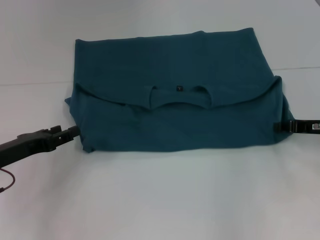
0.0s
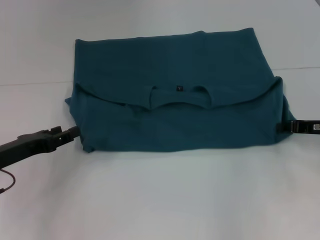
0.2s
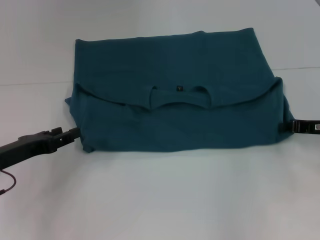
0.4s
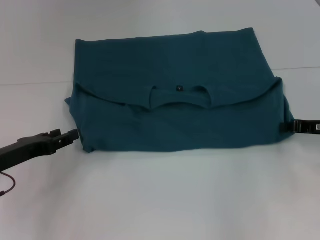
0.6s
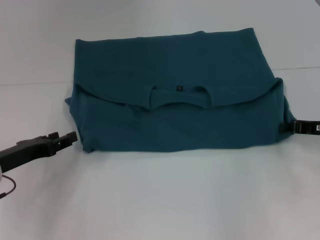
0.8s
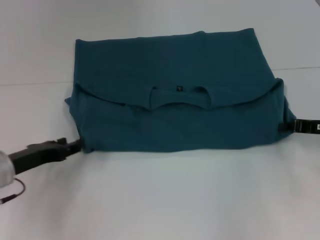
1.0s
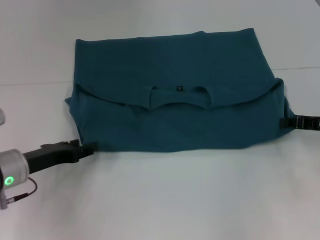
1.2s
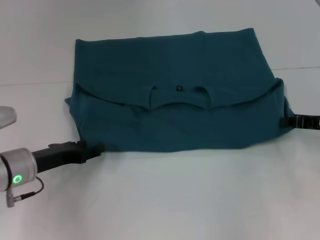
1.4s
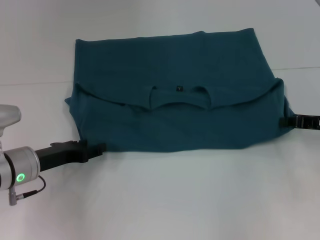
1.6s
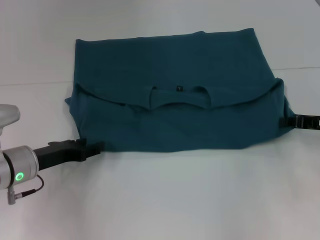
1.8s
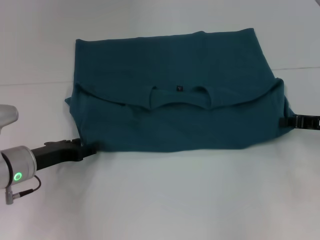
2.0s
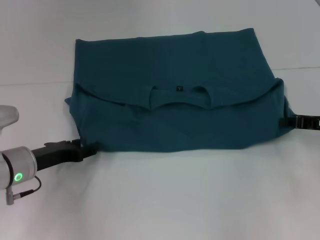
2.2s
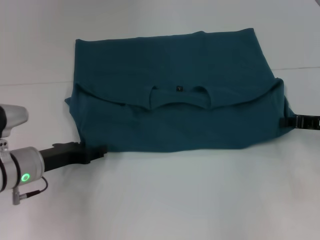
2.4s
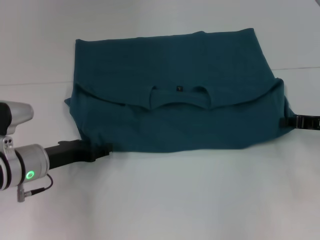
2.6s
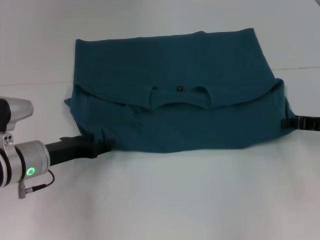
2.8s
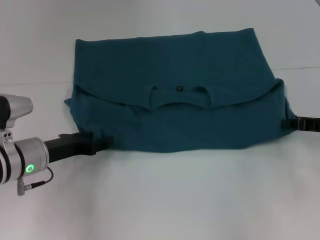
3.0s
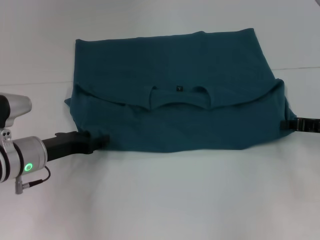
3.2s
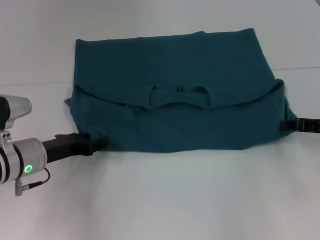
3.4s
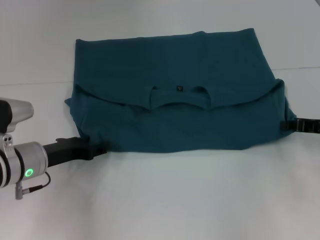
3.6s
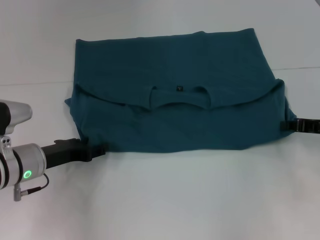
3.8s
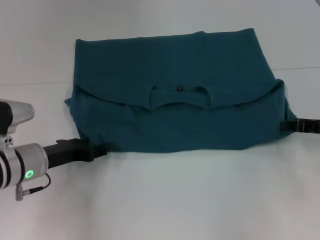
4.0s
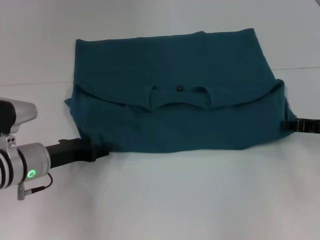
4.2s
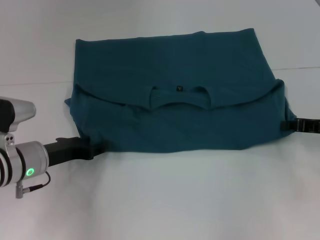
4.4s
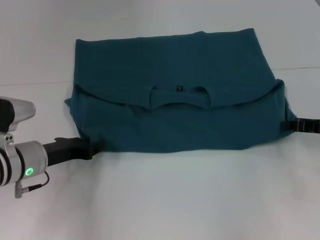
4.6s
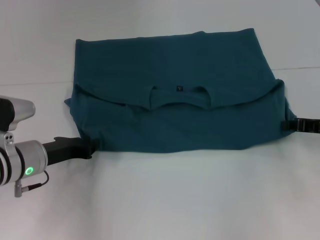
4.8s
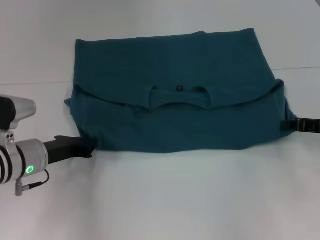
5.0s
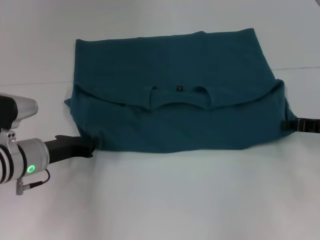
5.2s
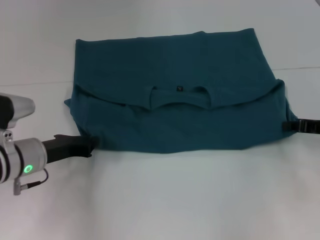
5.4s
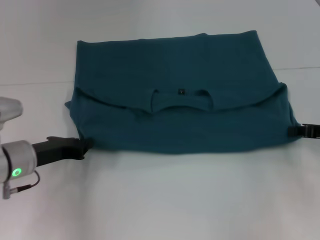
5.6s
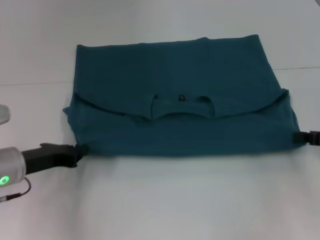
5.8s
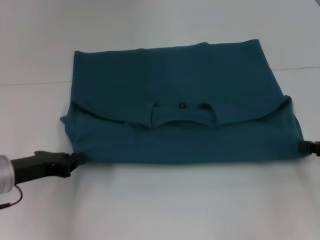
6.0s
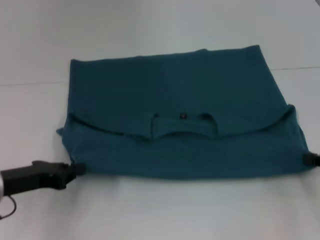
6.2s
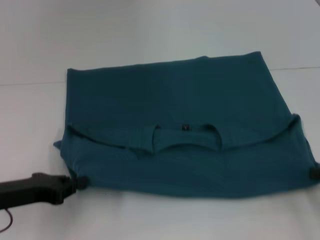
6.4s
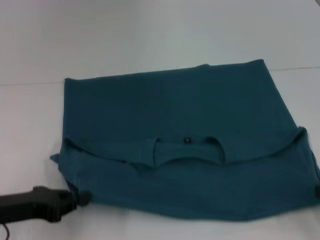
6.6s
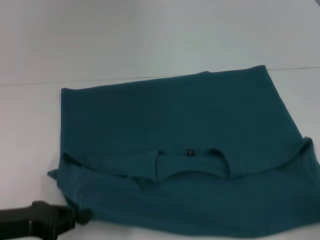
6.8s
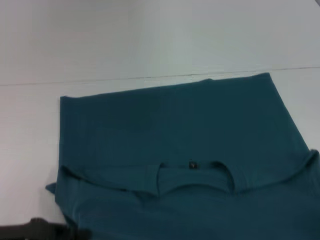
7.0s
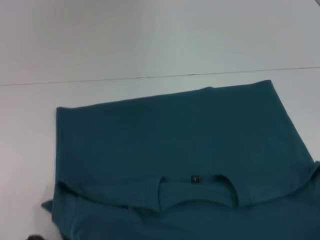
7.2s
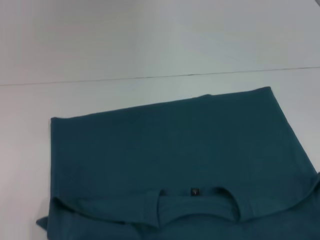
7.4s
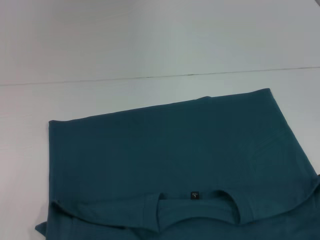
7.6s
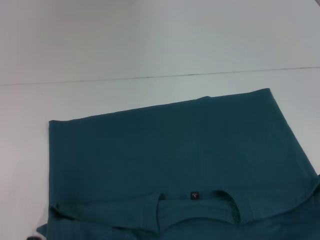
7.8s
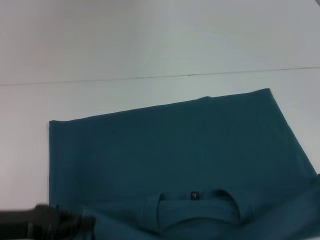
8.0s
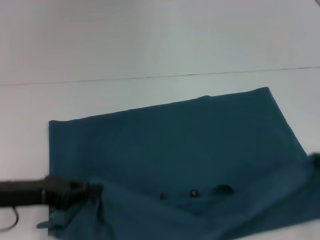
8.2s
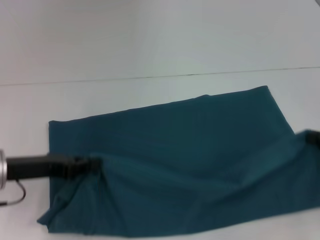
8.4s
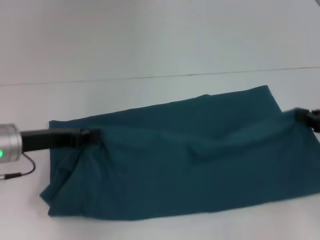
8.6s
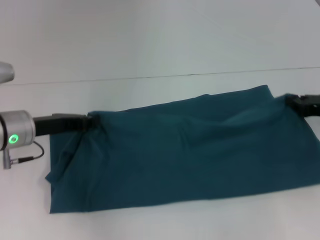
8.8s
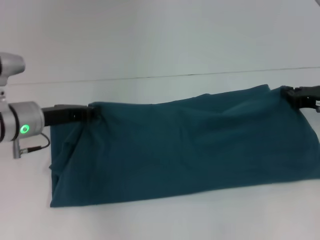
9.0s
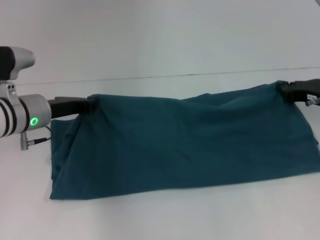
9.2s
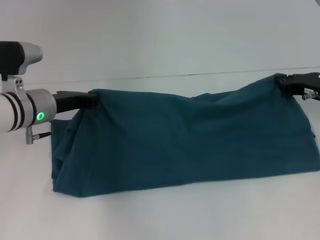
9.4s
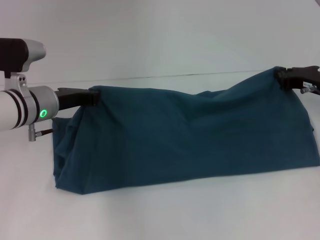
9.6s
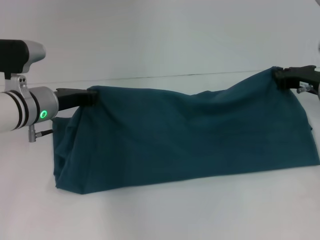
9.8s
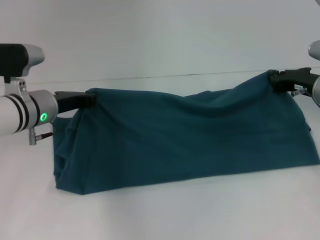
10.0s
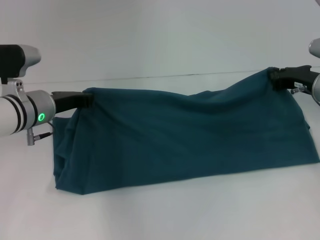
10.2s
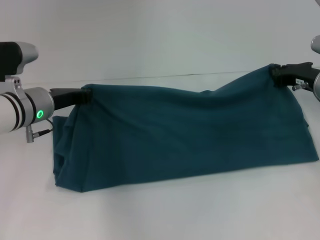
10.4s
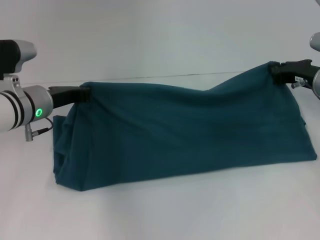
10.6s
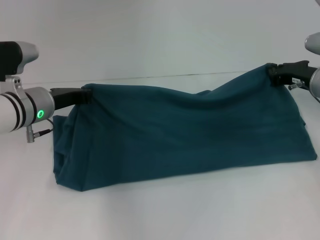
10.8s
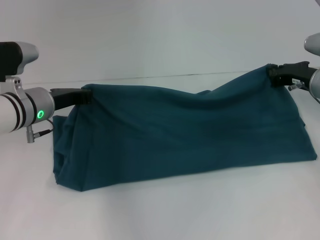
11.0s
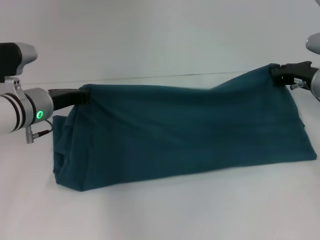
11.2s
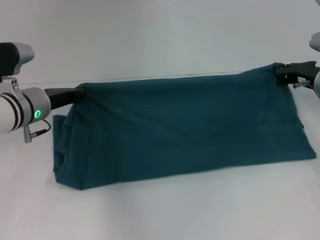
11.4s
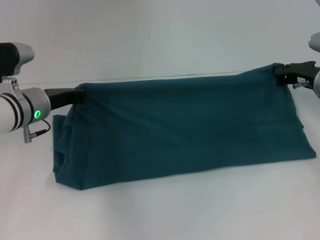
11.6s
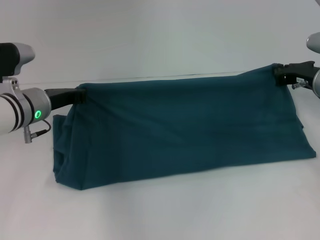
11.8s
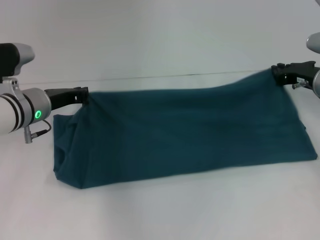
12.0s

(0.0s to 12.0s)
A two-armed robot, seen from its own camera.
Step, 0.0s - 7.4s: Pull the clothes with your left hand.
Step, 0.0s - 7.4s: Pull the clothes with your right hand.
0.0s - 1.6s: The left gripper shifts by approximately 5 cm.
1.6s - 3.0s: There are only small adjustments of the grippers.
3.0s - 4.4s: The two grippers keep their place.
4.4s - 6.0s: The right gripper shifts by about 5 cm; the left gripper shifts by approximately 5 cm, and closes up.
6.0s - 7.6s: Both grippers travel together backward, about 15 cm.
7.6s - 9.0s: The grippers both shift forward by about 25 cm.
9.0s - 10.4s: The right gripper changes place by roughly 5 cm.
10.4s - 12.0s: Both grippers stay put.

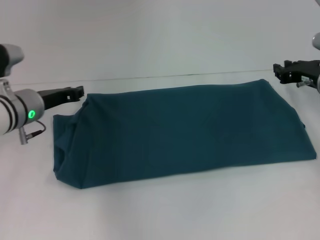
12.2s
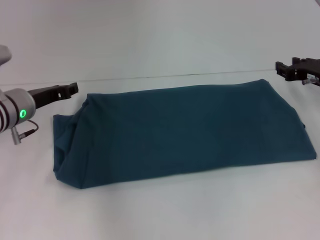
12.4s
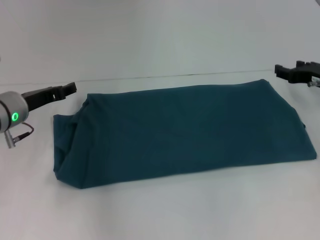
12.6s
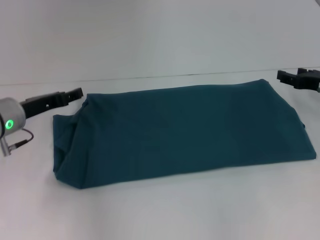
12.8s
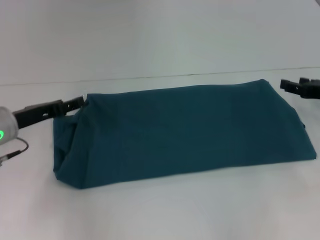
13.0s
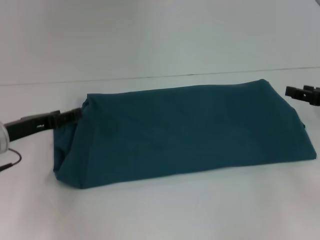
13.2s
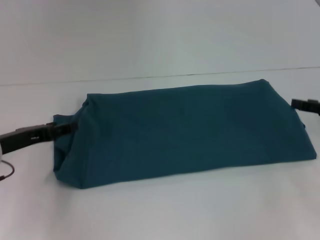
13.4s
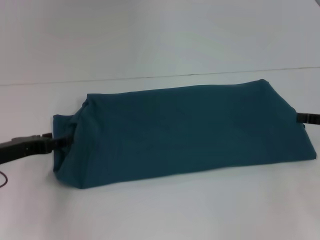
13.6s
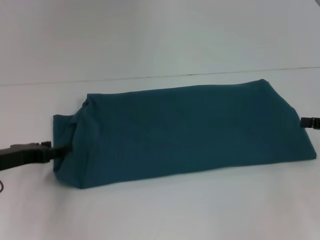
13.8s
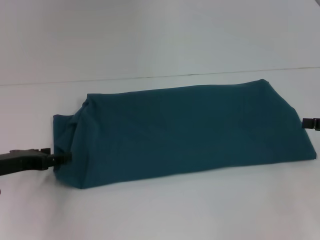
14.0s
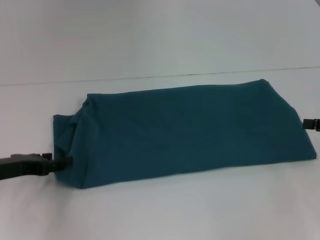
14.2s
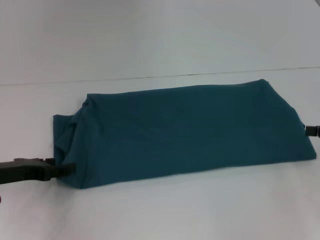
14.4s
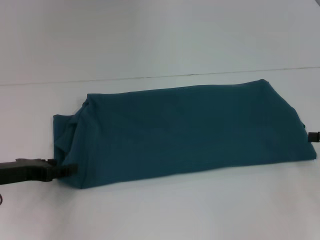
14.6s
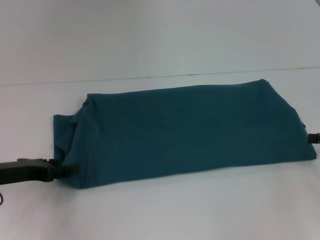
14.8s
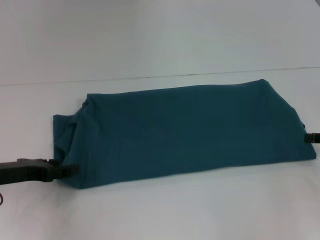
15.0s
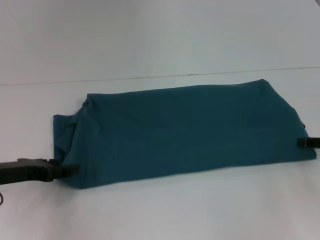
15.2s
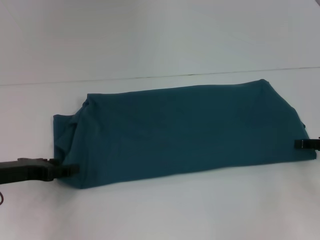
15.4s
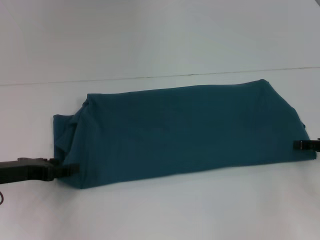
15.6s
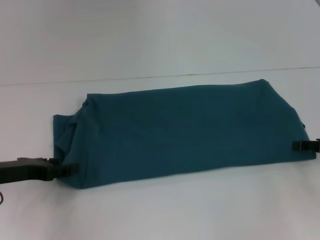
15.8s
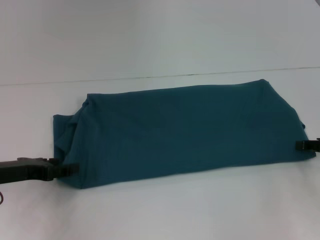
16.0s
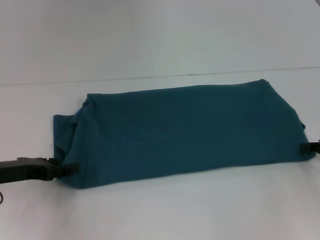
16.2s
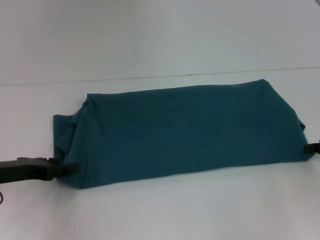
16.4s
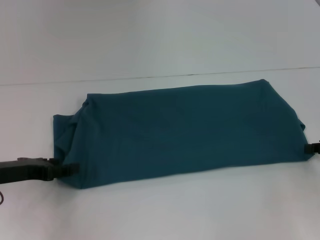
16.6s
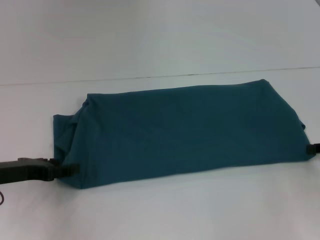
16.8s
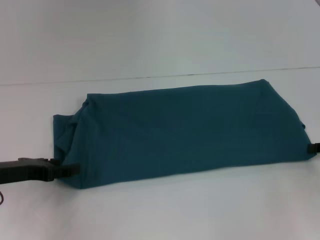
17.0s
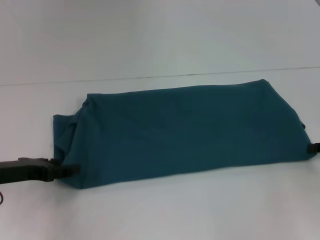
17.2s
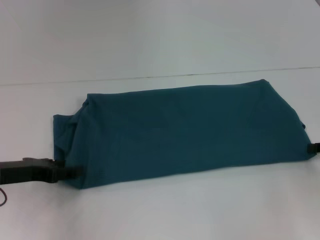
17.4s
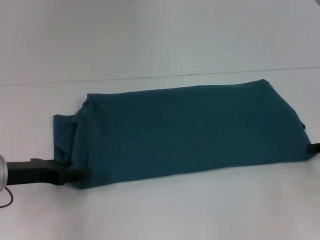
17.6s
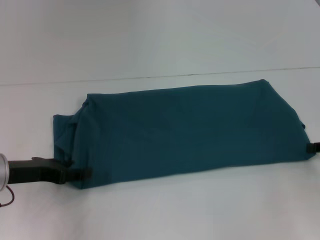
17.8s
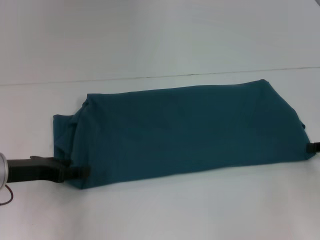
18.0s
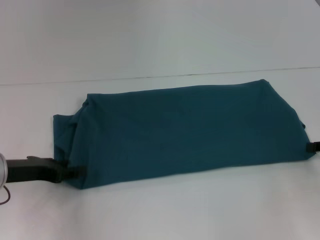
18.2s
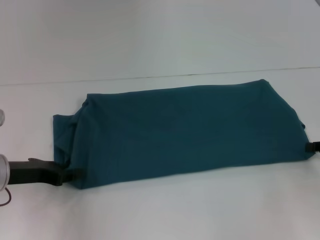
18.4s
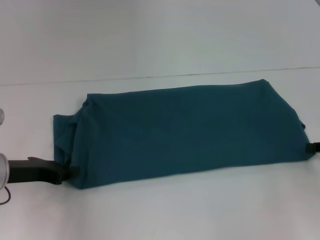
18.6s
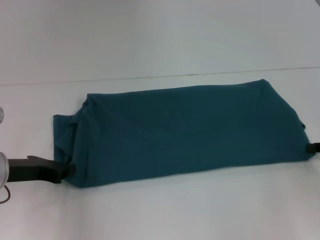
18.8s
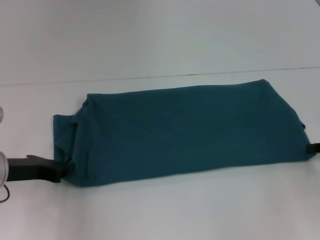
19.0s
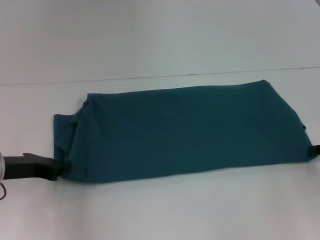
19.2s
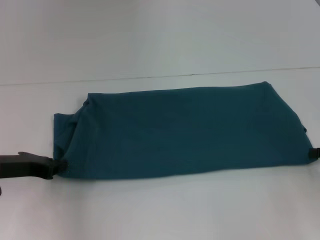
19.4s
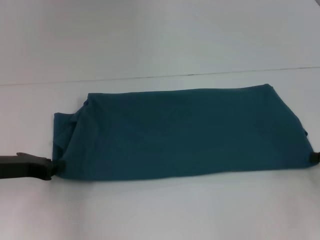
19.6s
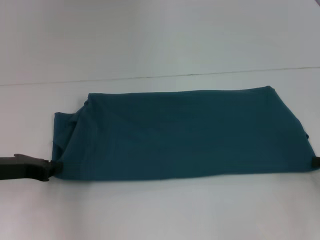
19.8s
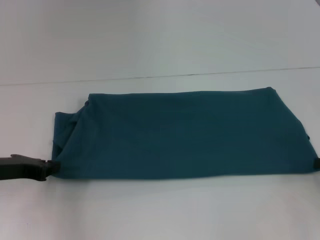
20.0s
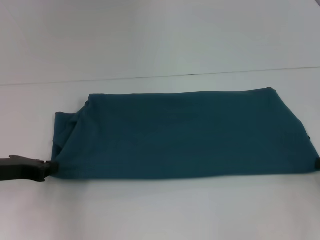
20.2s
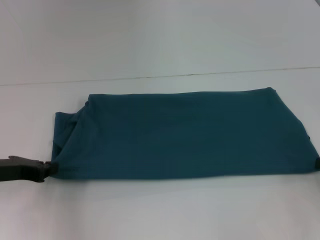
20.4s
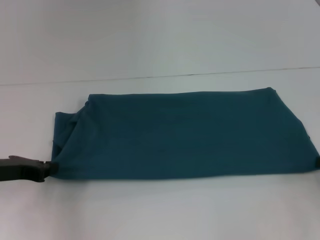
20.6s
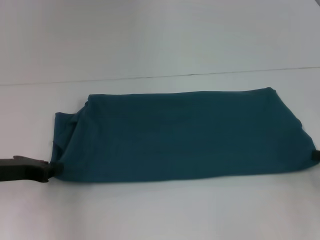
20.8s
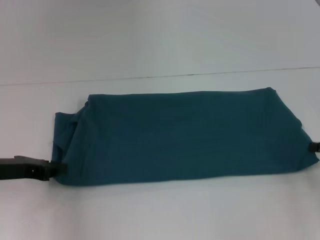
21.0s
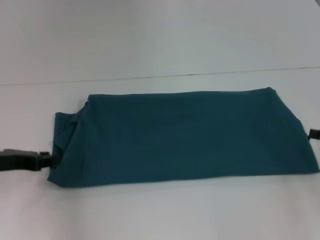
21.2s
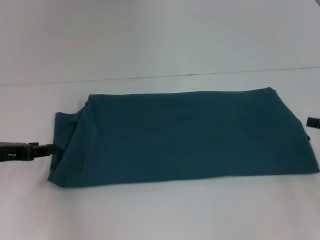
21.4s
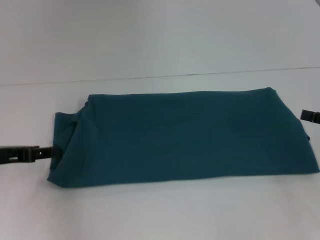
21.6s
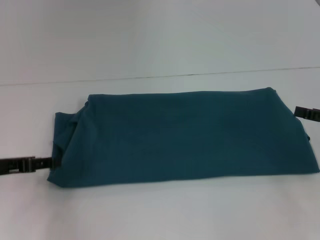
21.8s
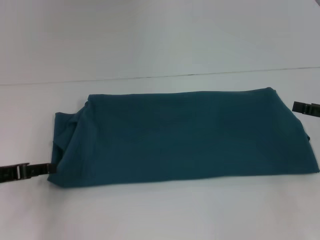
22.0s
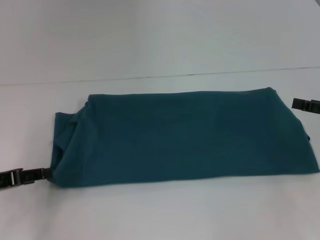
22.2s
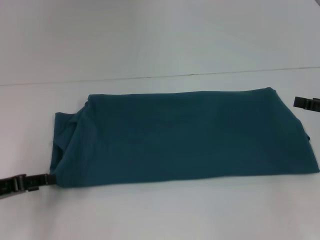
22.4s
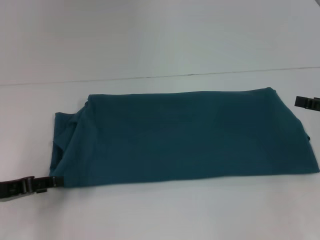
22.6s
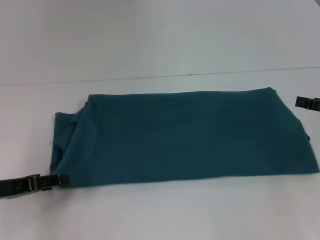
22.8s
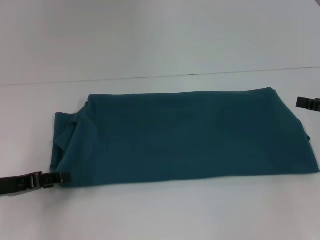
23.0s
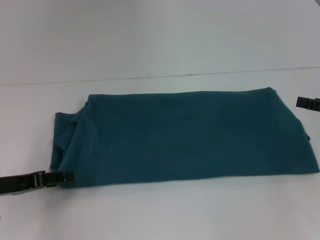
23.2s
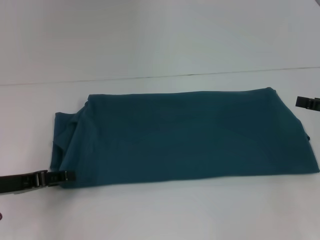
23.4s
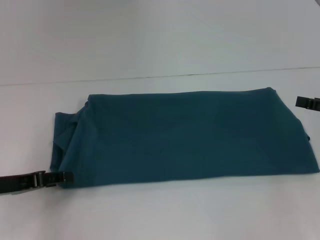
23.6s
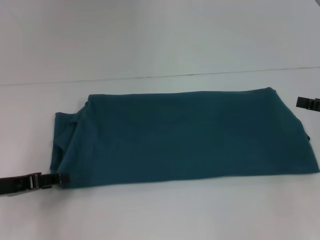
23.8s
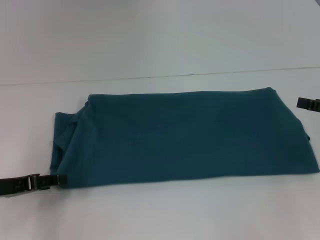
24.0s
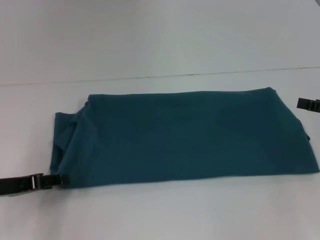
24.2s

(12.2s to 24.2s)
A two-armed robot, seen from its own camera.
12.2s - 13.8s: The left gripper is displaced backward and to the left by some 10 cm, and opens up; the right gripper travels backward and to the right by approximately 15 cm, and opens its fingers.
13.8s - 15.2s: There are only small adjustments of the grippers.
18.2s - 19.8s: The left gripper closes.
19.8s - 21.2s: The grippers stay close to where they were, moving slightly.
21.2s - 22.6s: The left gripper shifts by some 5 cm, and opens up.
22.6s - 24.2s: The grippers stay close to where they were, moving slightly.
